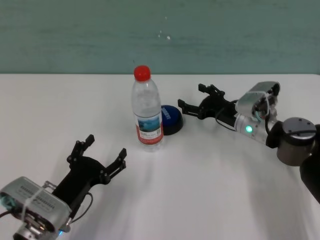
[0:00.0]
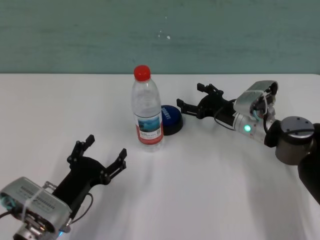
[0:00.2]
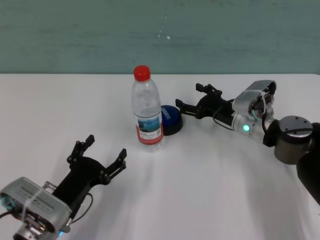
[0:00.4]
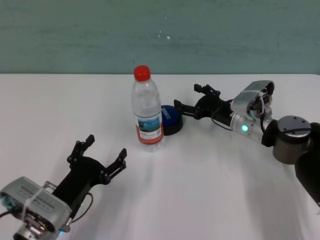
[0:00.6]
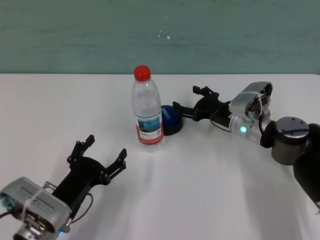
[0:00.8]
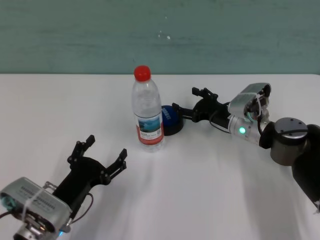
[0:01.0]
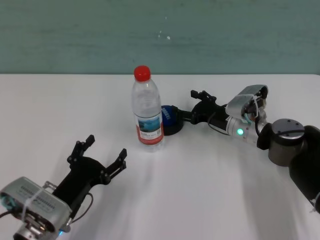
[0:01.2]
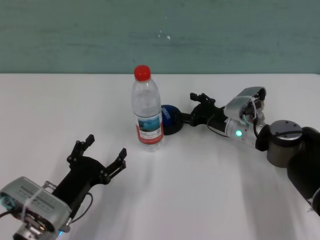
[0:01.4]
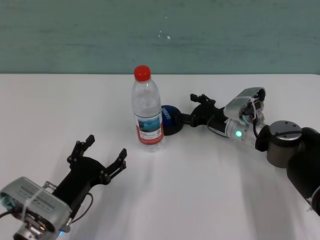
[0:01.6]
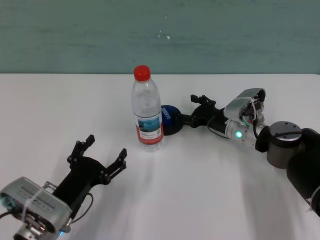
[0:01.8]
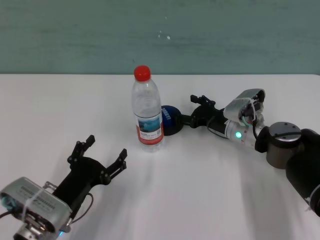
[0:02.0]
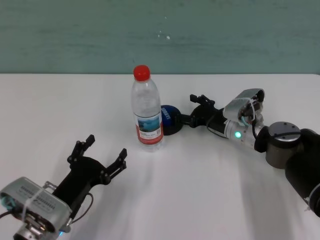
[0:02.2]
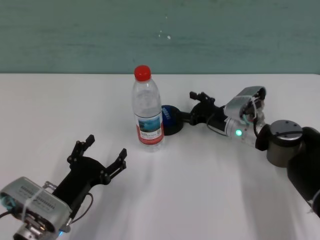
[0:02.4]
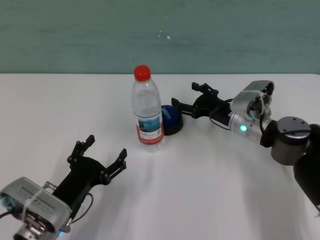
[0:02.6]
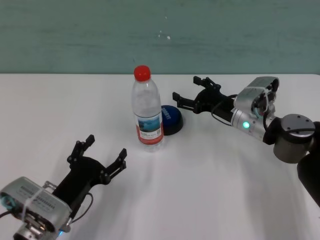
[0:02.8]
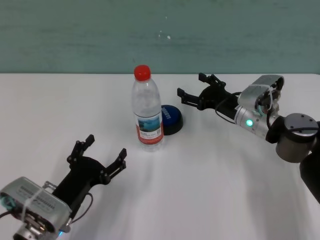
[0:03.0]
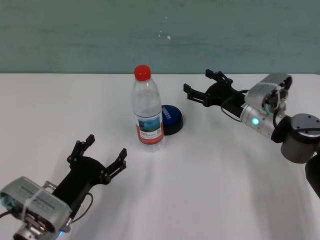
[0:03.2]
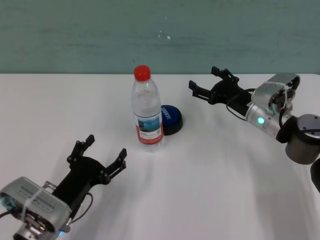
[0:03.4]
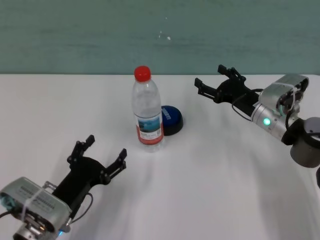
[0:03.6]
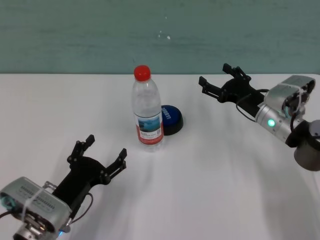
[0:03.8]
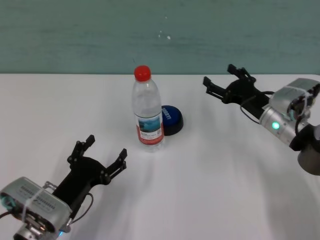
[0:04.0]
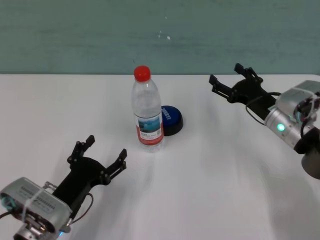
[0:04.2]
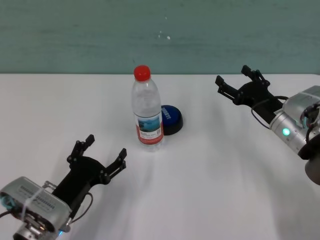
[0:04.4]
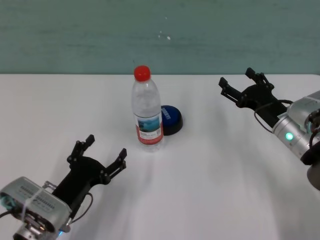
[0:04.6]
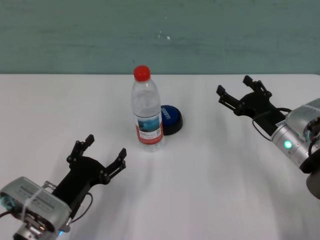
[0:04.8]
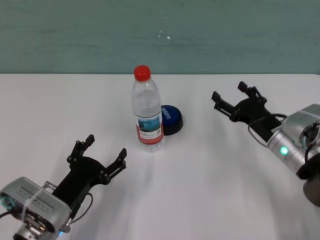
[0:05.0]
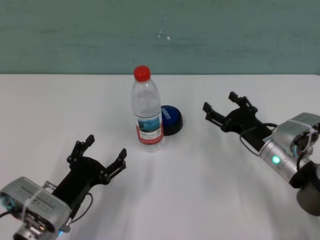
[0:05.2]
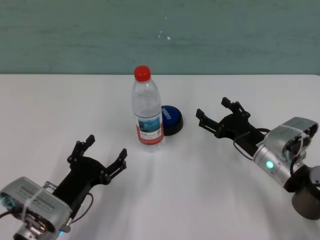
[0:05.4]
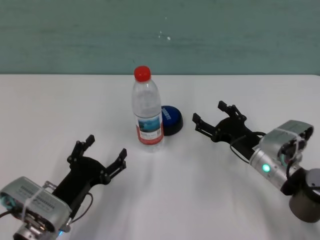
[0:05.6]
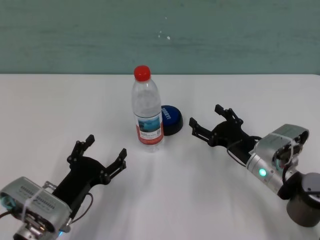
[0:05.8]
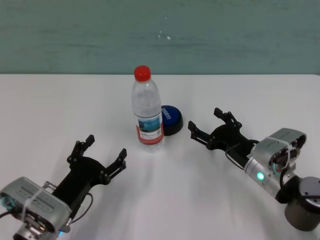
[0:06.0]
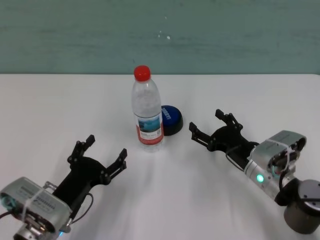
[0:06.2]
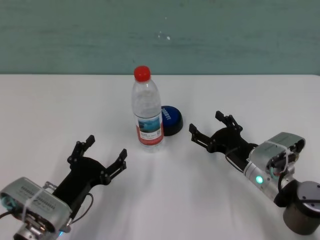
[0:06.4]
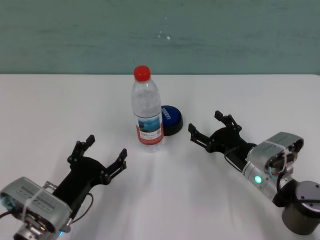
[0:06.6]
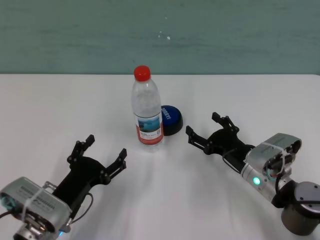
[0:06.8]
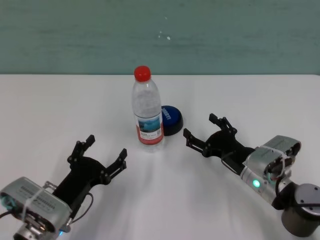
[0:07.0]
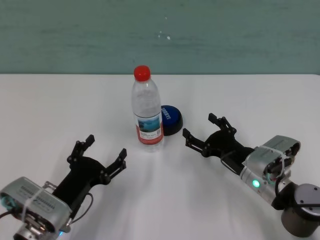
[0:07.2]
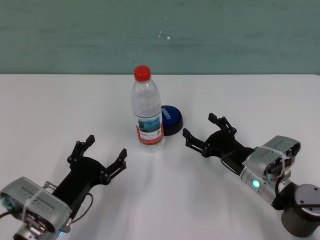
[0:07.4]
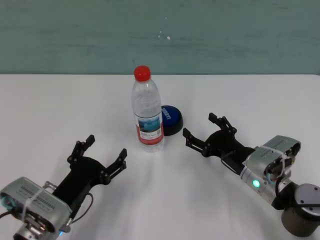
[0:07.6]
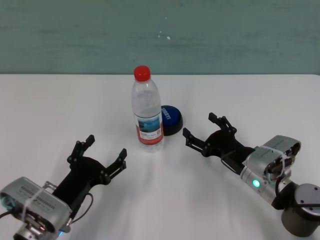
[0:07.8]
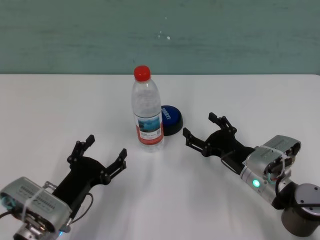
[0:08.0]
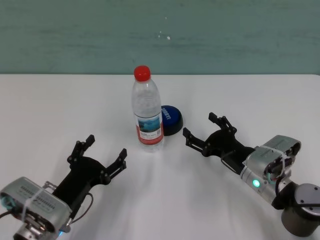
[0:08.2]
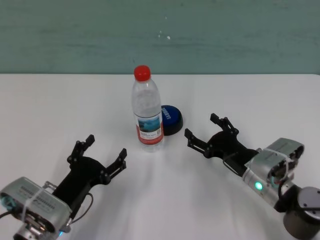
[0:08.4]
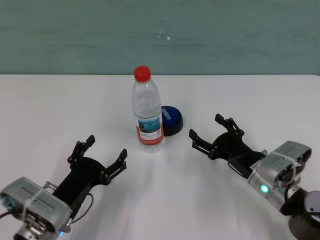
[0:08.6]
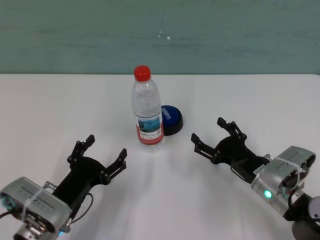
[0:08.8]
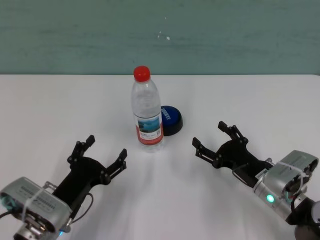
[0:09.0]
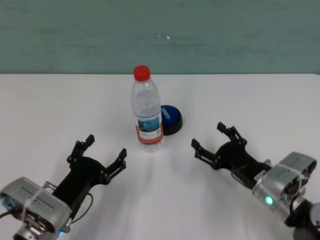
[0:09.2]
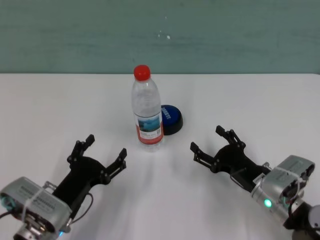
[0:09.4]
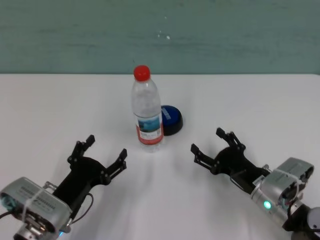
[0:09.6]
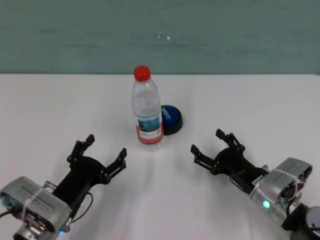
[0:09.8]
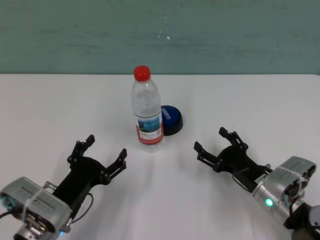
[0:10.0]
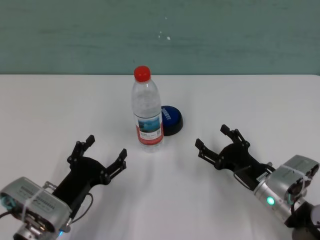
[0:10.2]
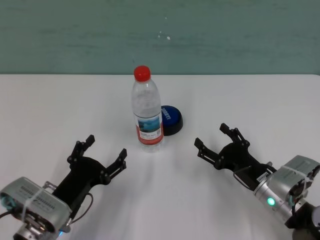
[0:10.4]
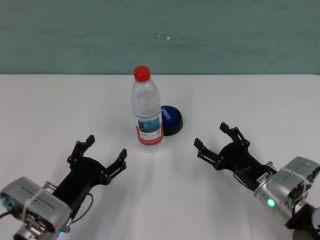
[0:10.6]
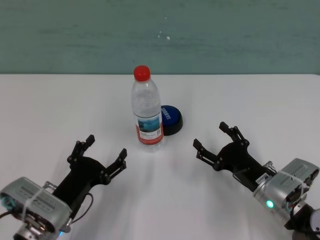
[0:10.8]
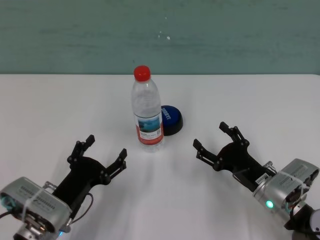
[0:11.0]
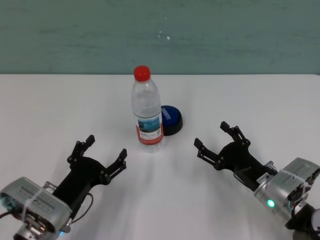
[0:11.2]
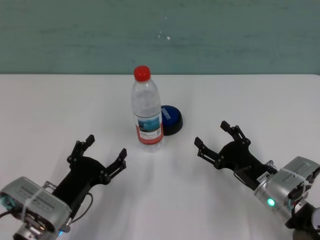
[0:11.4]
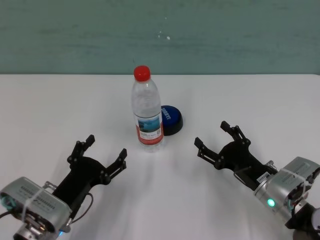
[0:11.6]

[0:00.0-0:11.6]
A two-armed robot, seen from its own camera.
Task of the whole recording: after avoiding the water bottle on the table, press the button.
Step, 0:00.0 to 0:02.4: Press the button blocked by the bottle with right gripper.
